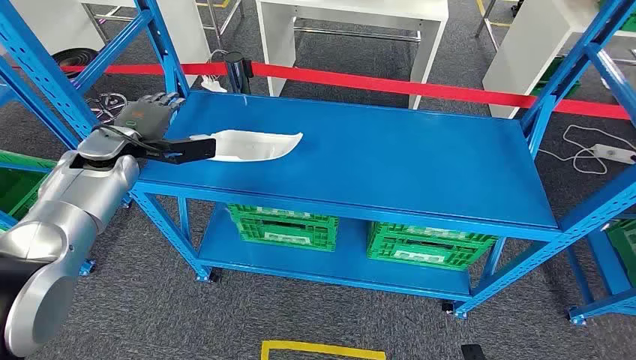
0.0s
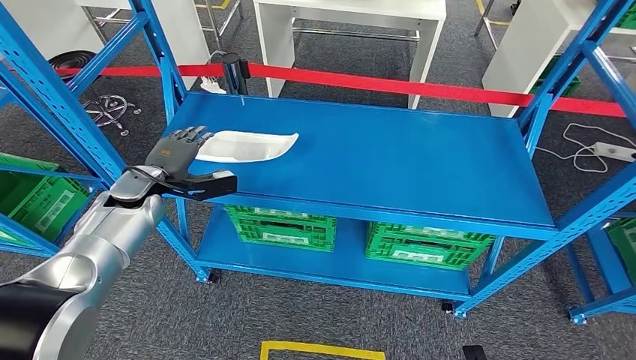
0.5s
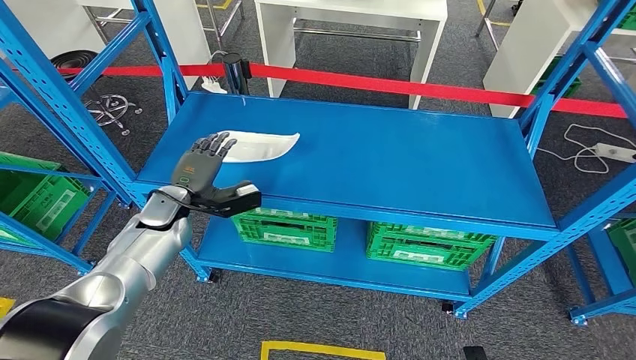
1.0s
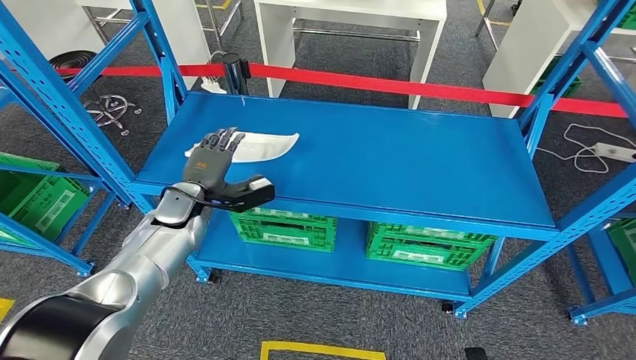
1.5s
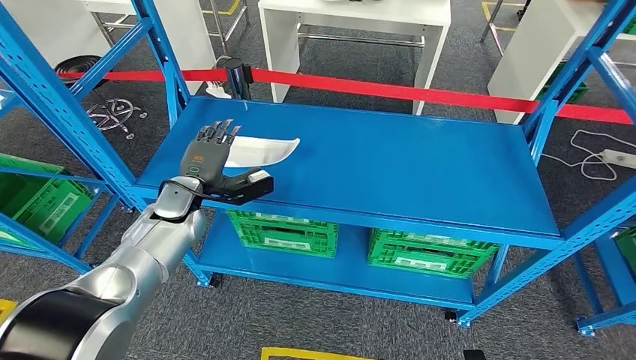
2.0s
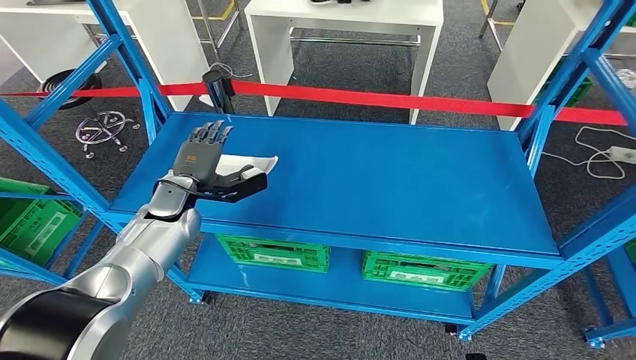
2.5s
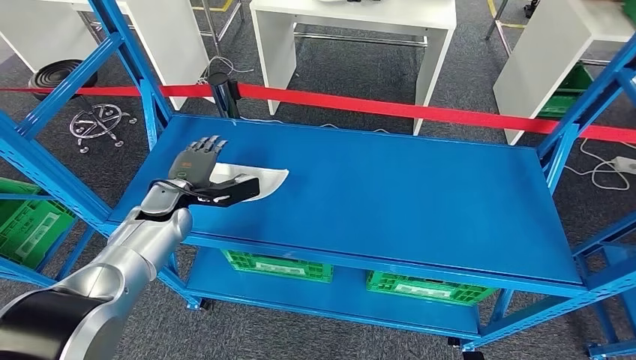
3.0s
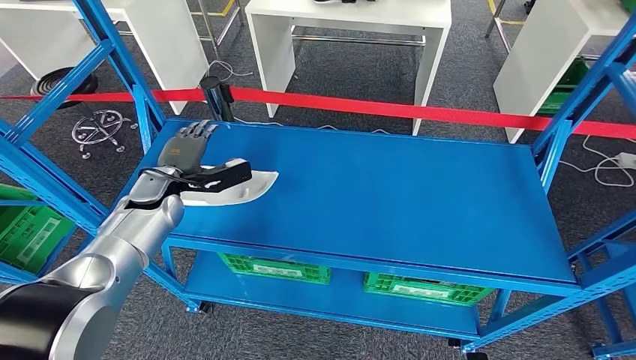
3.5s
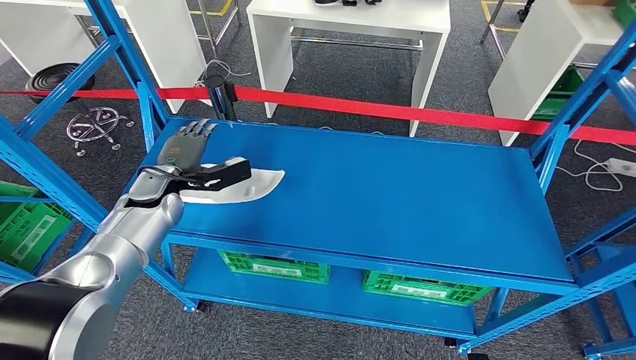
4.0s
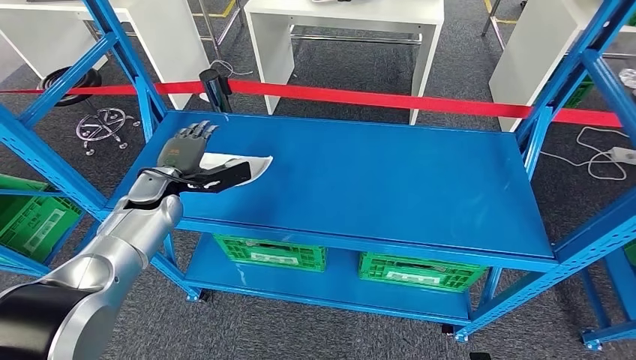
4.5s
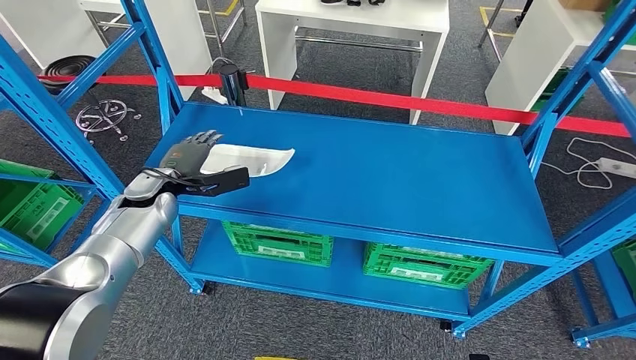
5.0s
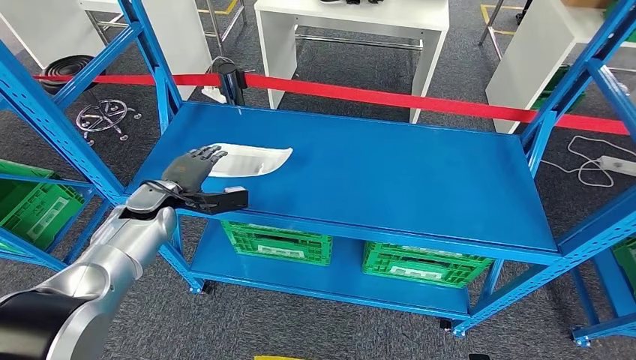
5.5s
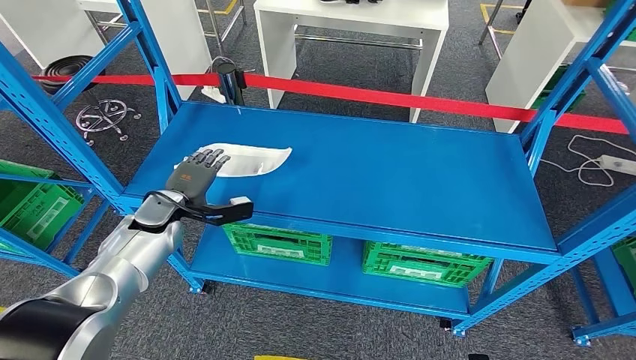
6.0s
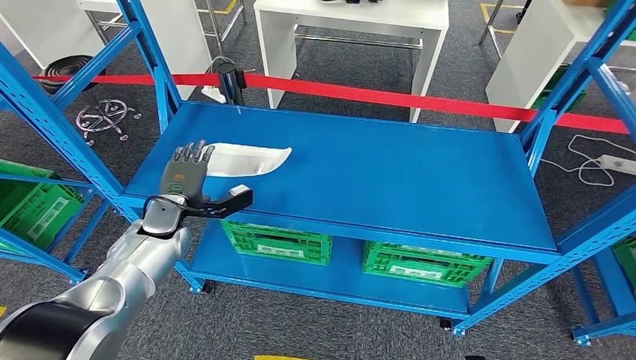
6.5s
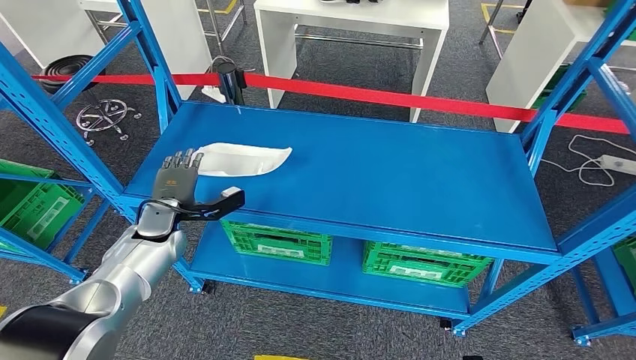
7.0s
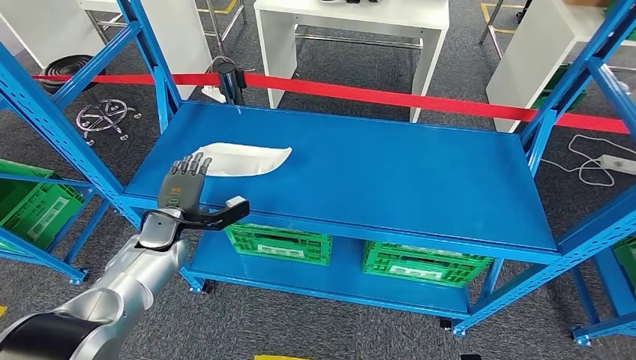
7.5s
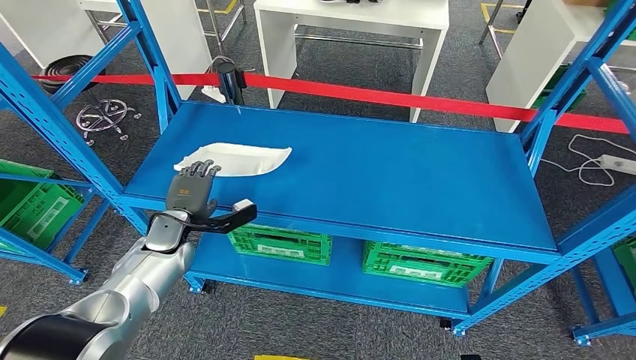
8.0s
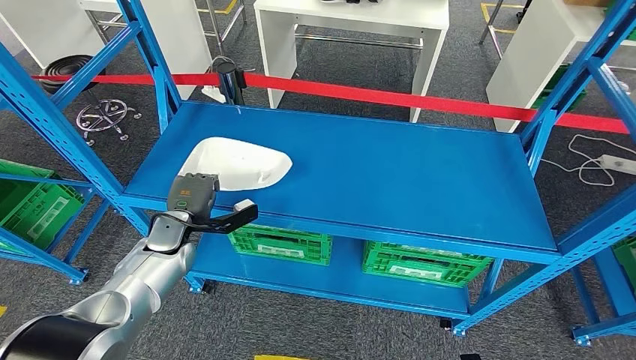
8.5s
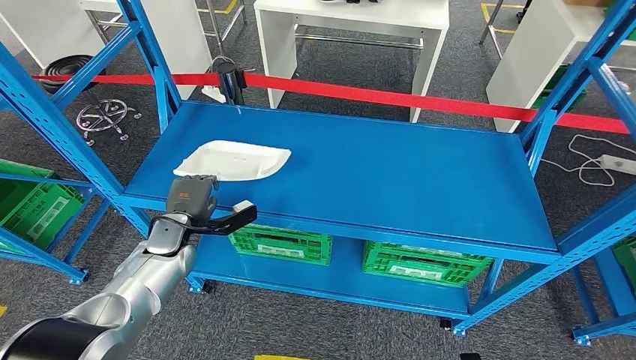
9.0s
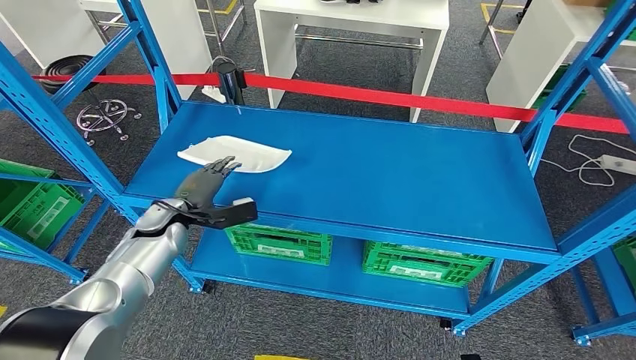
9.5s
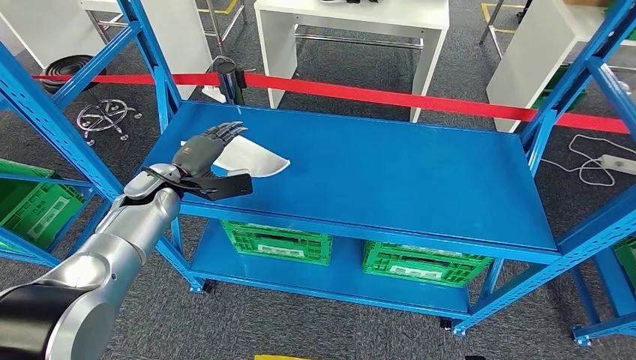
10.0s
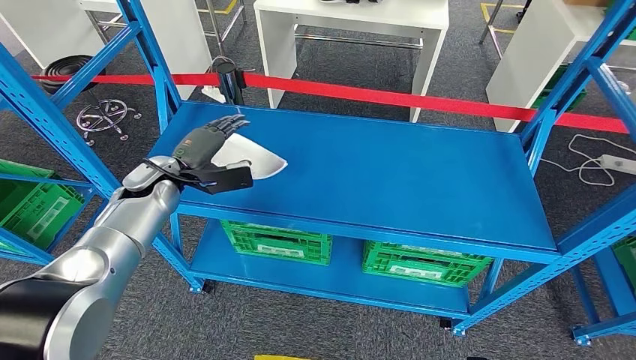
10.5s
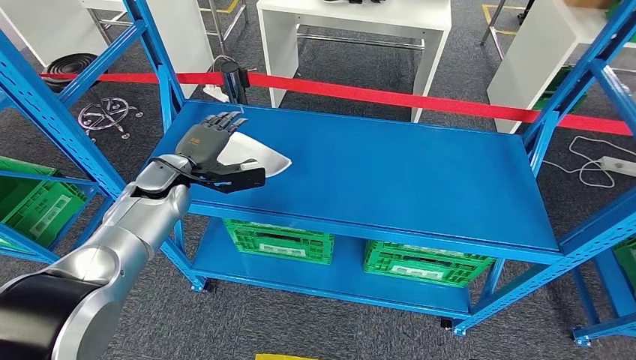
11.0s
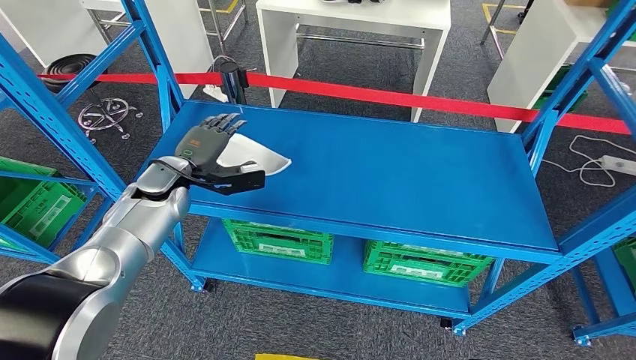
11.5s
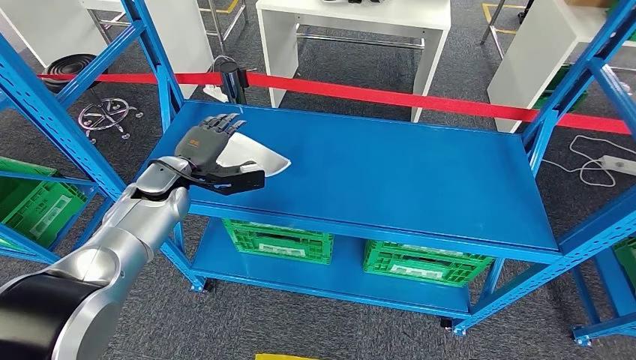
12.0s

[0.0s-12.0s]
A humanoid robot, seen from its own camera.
6.0s to 8.0s: The hands make only small movements.
8.0s to 10.0s: The left hand heads upward and forward, covering roughly 10 cm.
10.0s to 12.0s: The hands make only small movements.

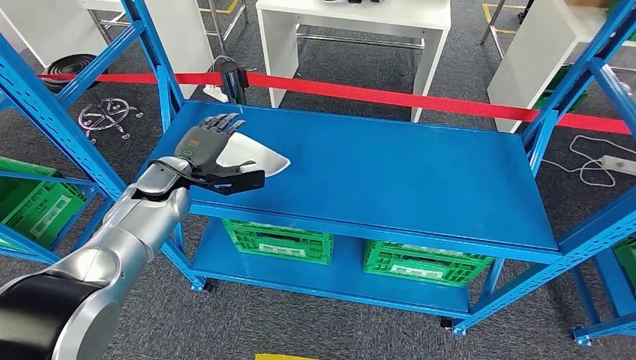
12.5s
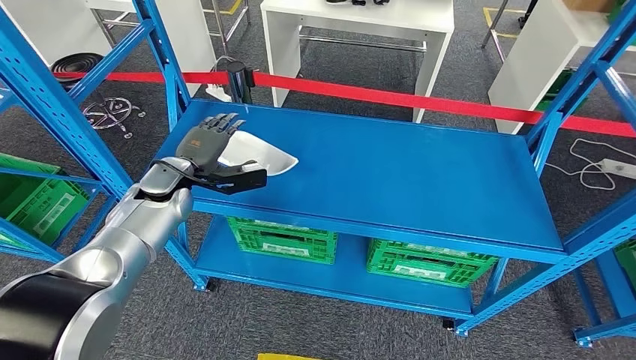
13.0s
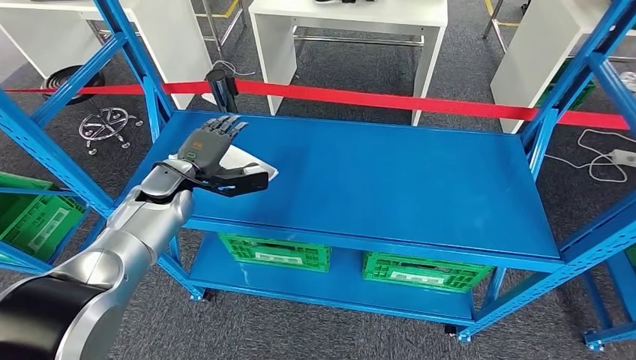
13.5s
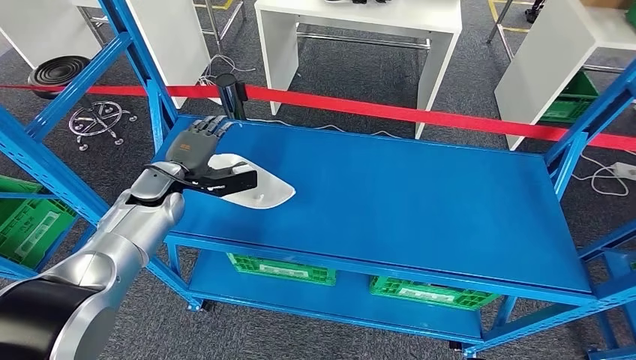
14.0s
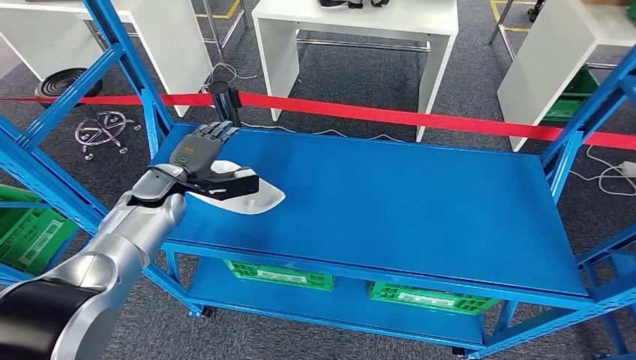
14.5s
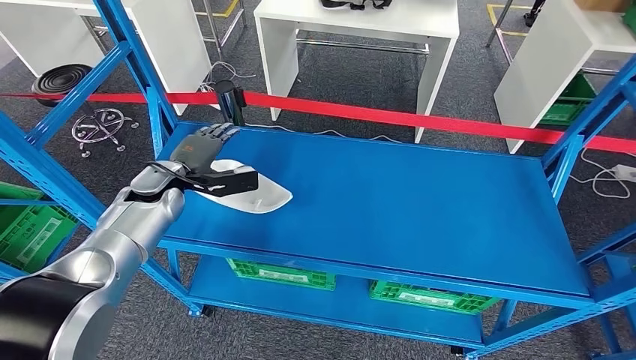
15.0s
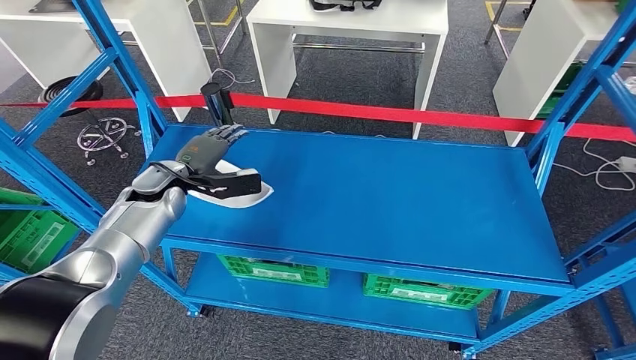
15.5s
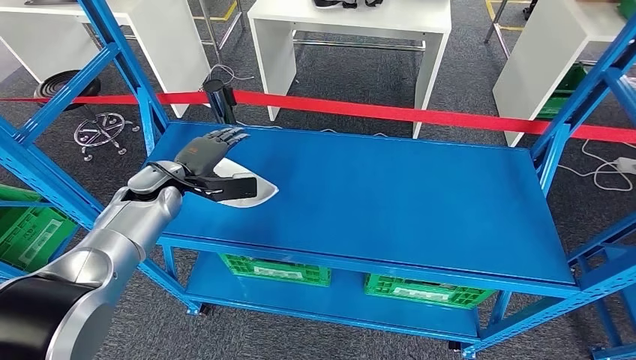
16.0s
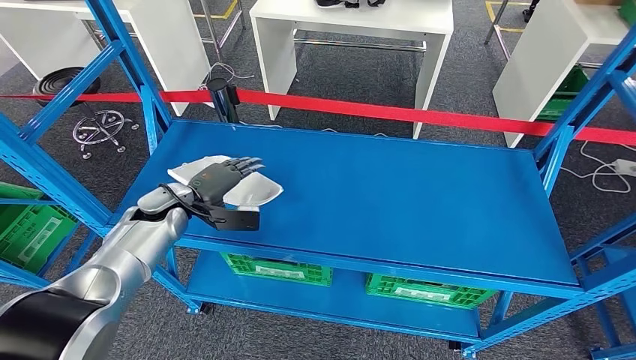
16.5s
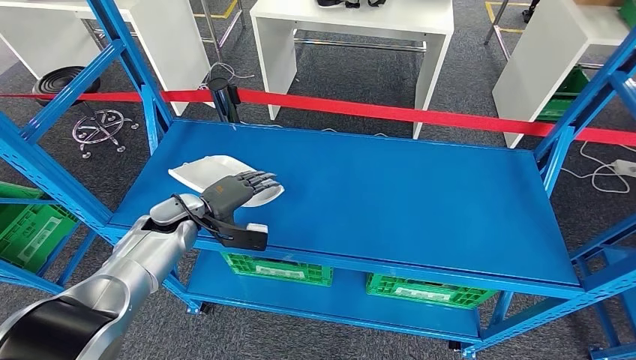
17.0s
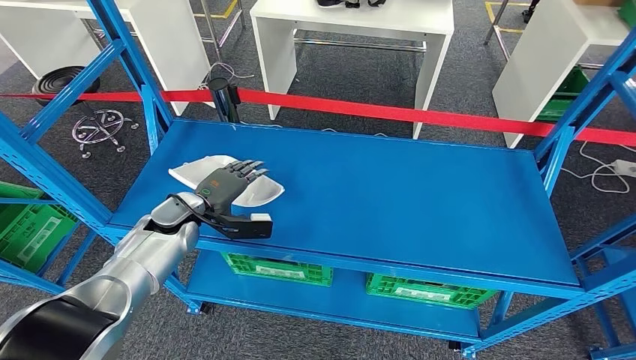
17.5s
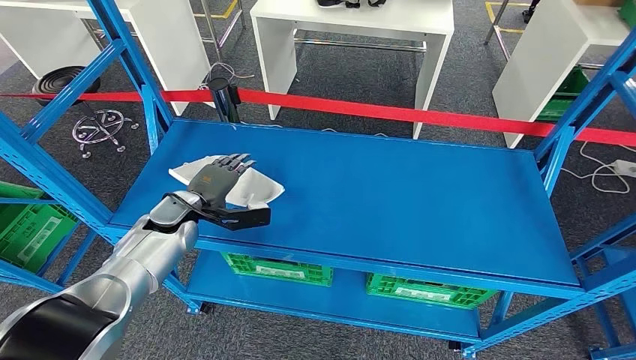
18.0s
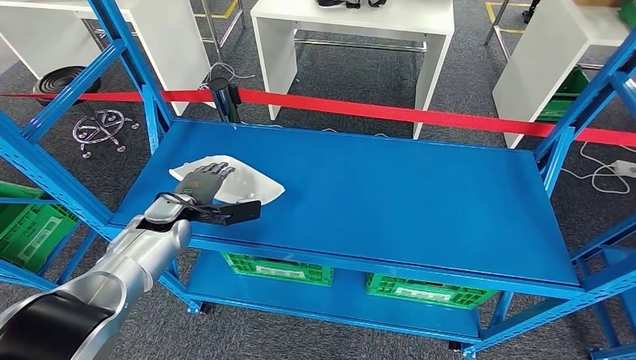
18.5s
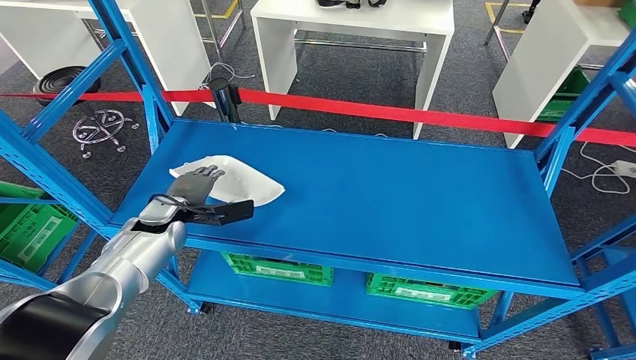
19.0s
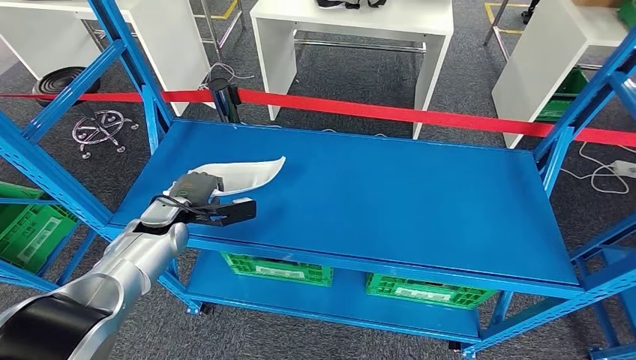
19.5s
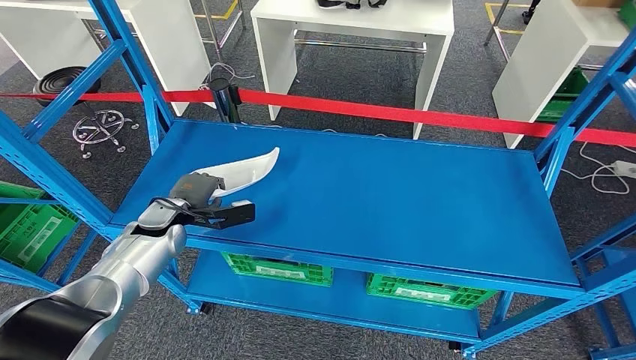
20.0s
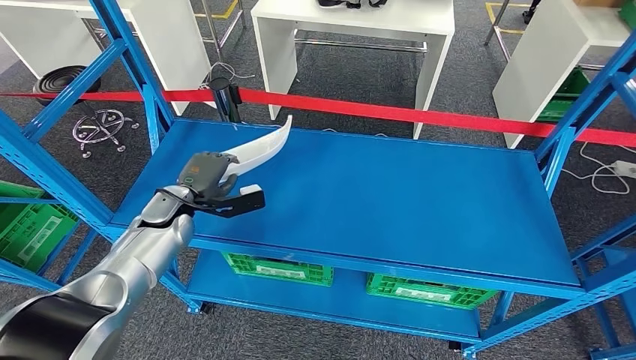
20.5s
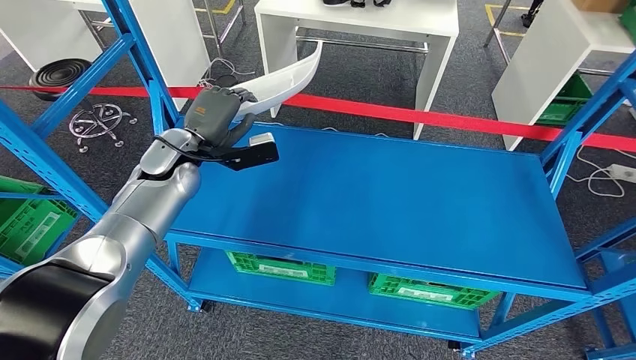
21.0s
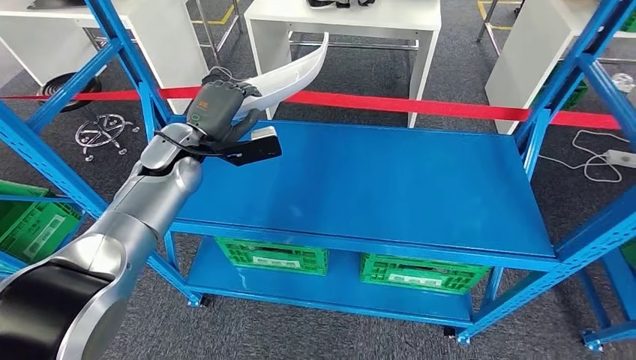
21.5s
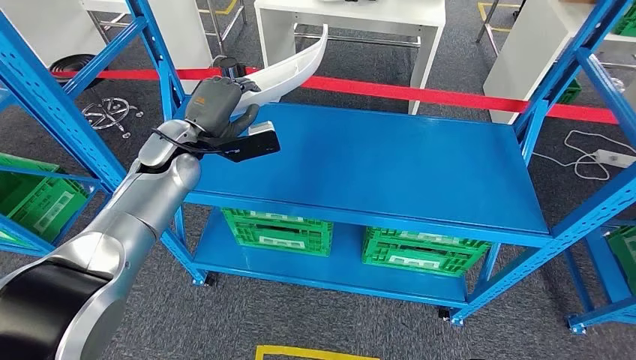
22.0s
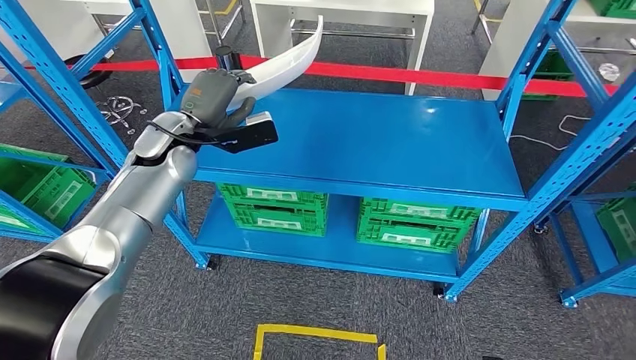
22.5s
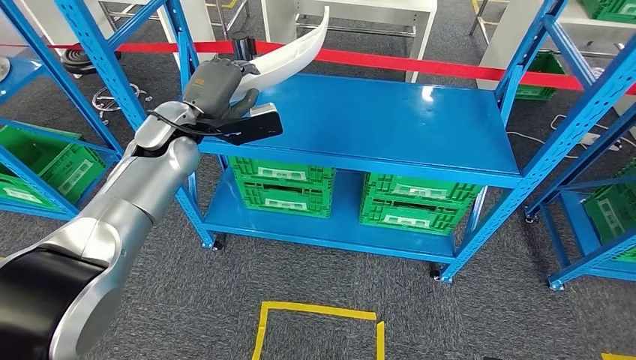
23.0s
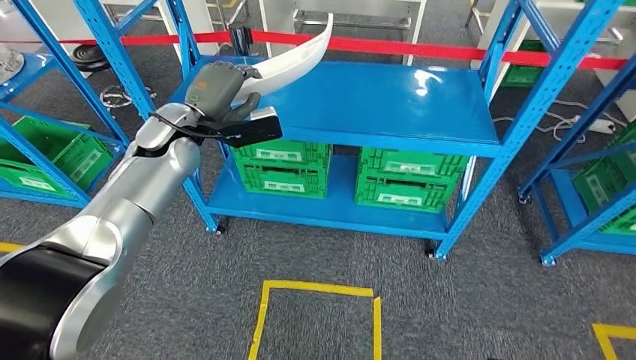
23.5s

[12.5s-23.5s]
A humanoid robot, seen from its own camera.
Step, 12.5s to 22.0s: Pick up the small component from the shelf.
18.0s to 20.0s: The hands move only a little.
